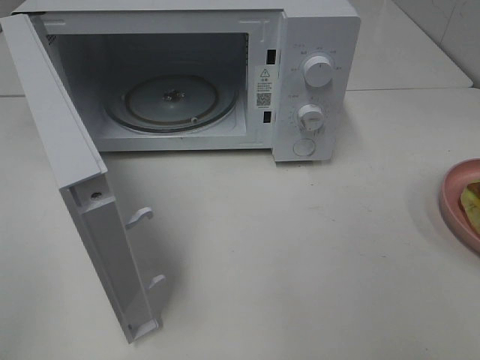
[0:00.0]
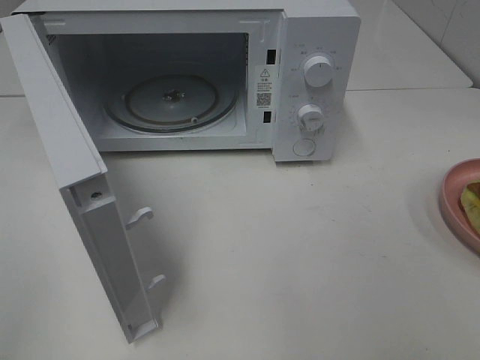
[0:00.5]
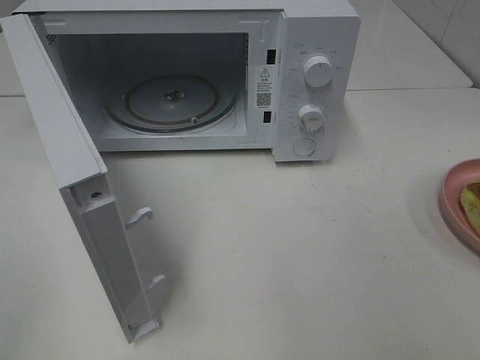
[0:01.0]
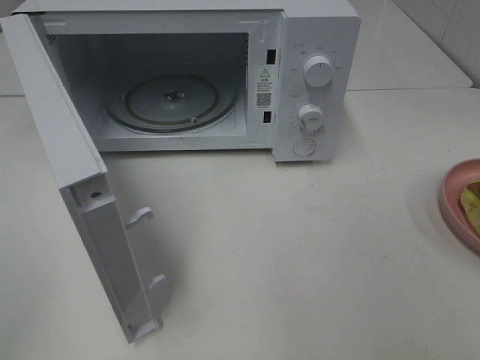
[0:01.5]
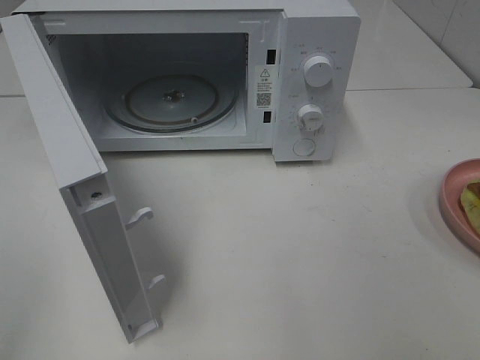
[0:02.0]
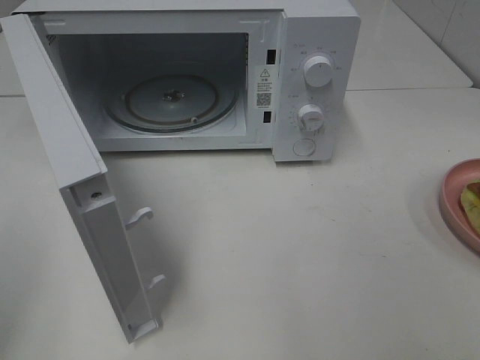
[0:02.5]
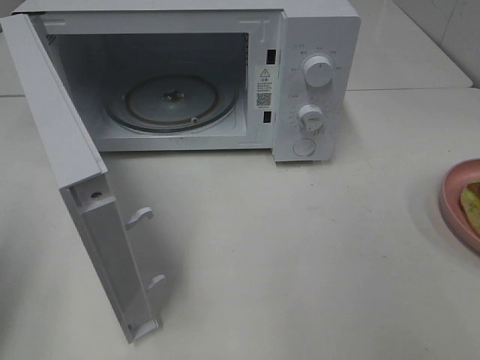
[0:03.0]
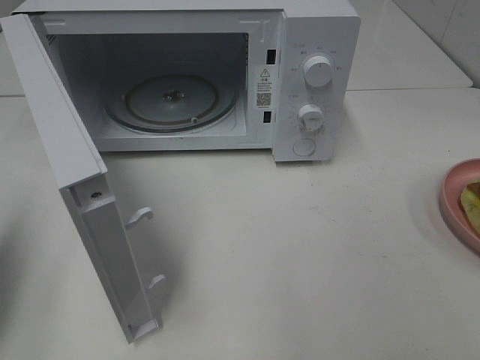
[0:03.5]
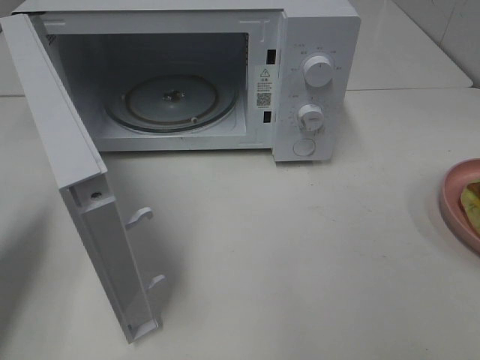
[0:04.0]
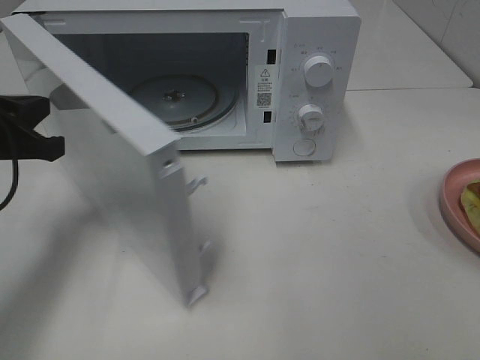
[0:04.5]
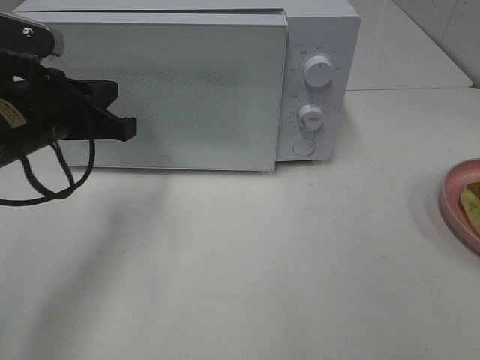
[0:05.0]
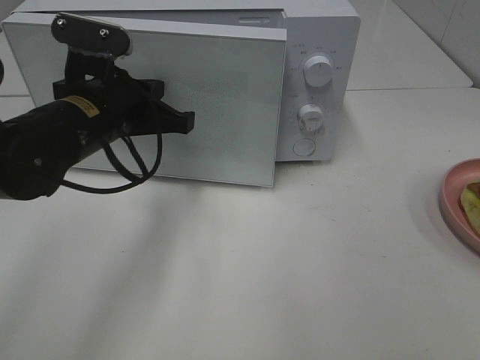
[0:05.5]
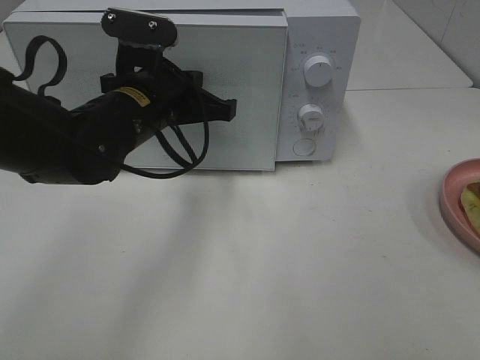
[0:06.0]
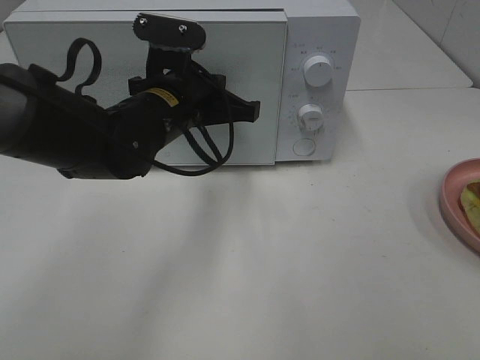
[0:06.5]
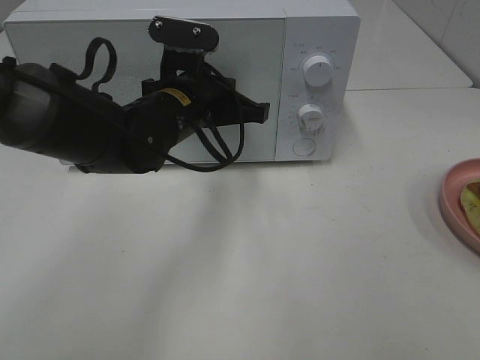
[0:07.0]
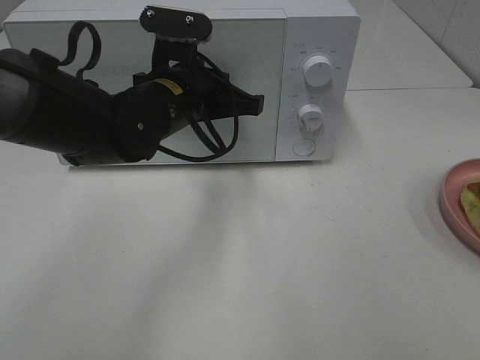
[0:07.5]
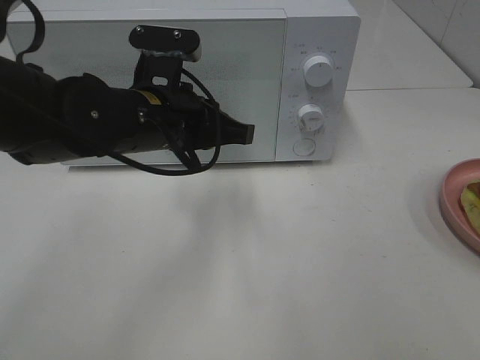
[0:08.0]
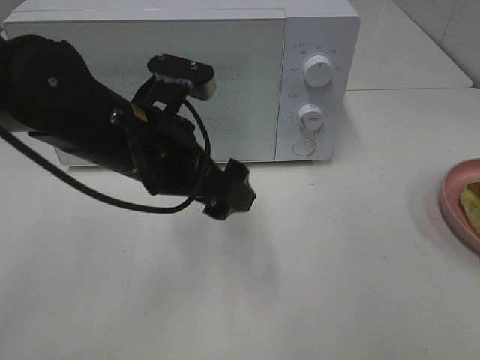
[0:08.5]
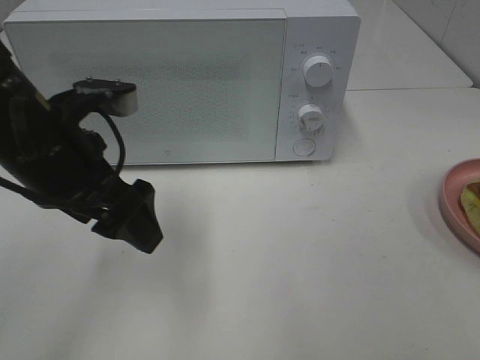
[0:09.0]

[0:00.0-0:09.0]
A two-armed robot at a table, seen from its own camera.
Task of the whole recording: Heat Sandwich.
Step, 0:00.0 to 0:08.0: Left hand: close the microwave door.
0:02.0 to 0:04.5: The left gripper travels forward and downward by some 30 cm, and closes its fingers.
0:04.5 to 0:07.0: The left gripper shifts roughly 20 cm to the right and forward.
0:07.0 to 0:09.0: The left gripper moves backward, to the left and upward, approximately 15 cm, and opens.

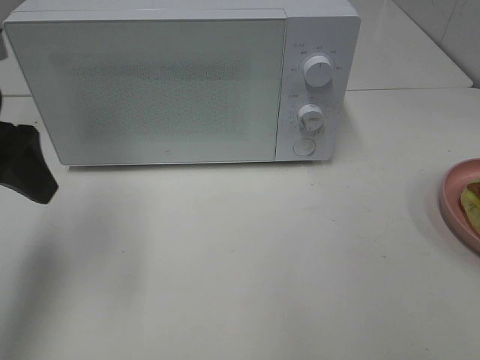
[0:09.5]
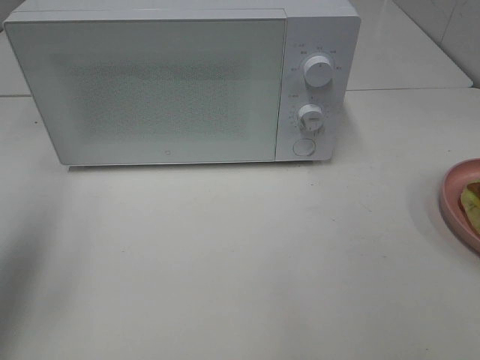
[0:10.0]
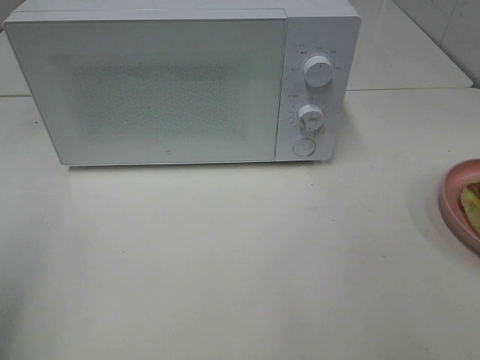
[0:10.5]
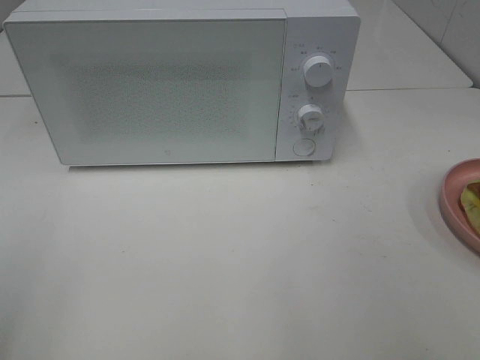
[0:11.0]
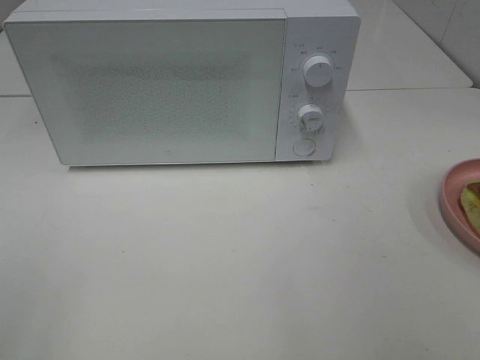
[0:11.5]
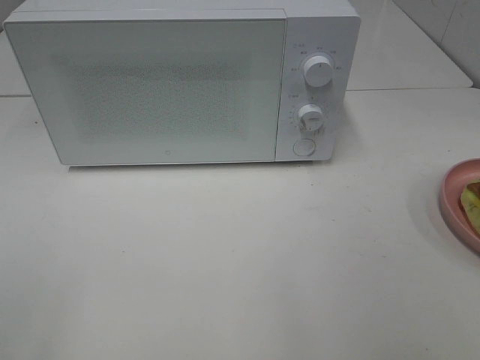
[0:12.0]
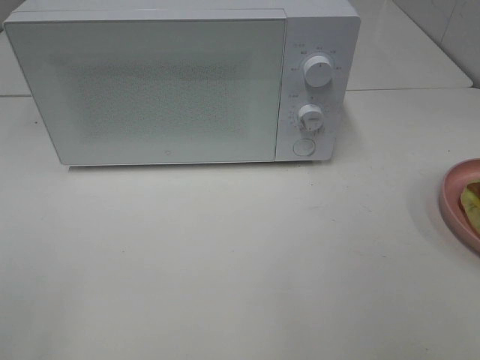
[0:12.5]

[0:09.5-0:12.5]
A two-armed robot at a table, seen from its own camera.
Task of the whole recording: Heat Sandwich.
0:09.5 to 0:11.0: The left gripper goes some 20 cm backward.

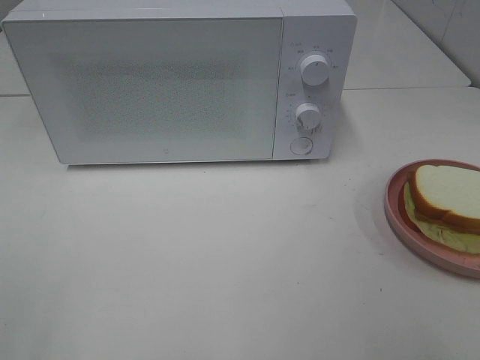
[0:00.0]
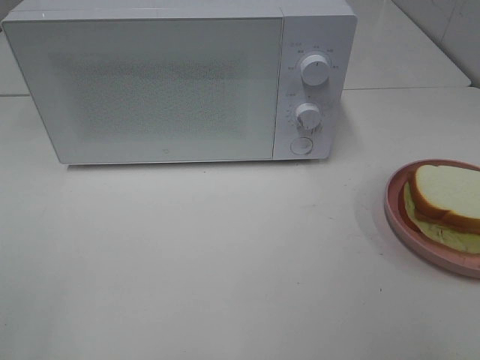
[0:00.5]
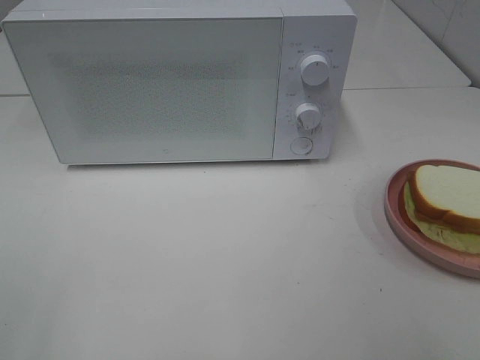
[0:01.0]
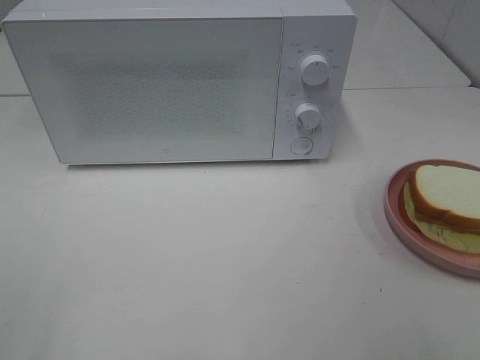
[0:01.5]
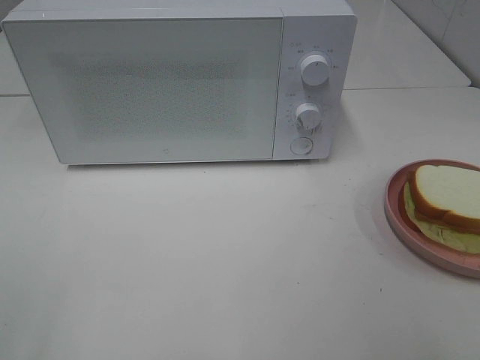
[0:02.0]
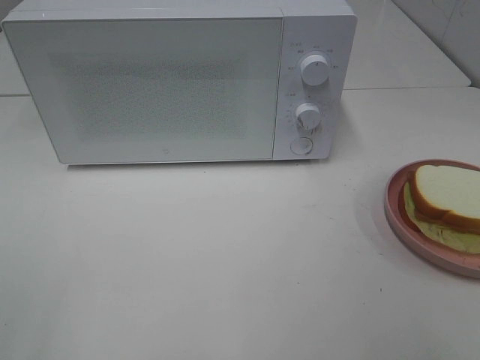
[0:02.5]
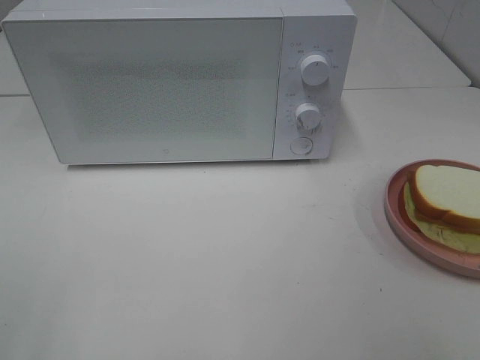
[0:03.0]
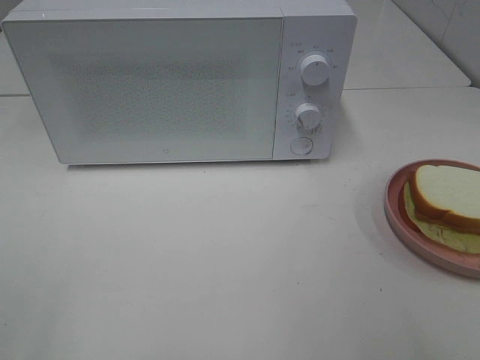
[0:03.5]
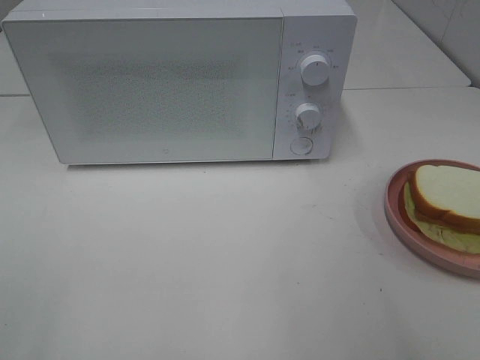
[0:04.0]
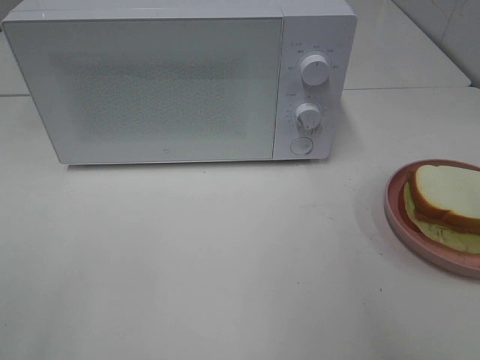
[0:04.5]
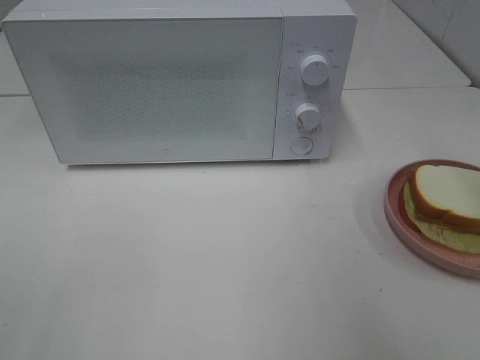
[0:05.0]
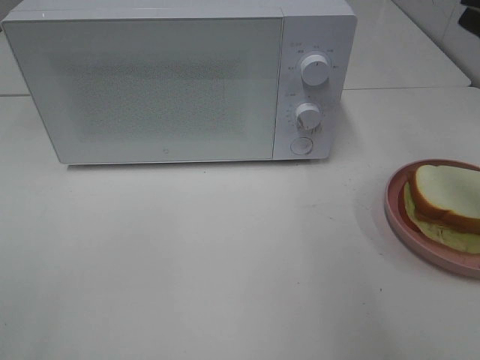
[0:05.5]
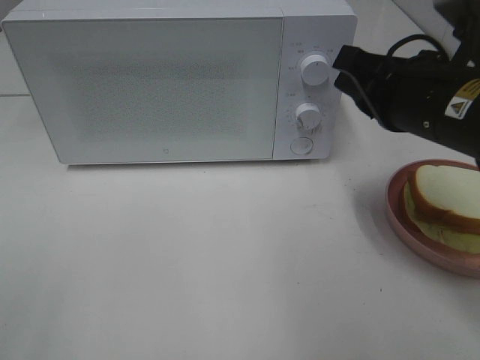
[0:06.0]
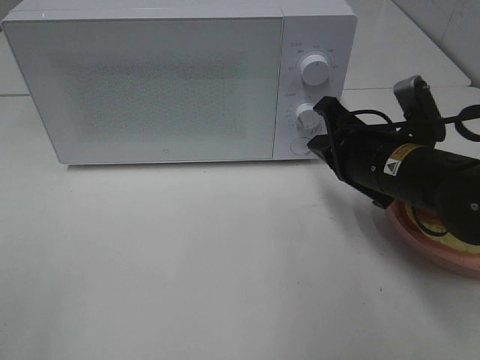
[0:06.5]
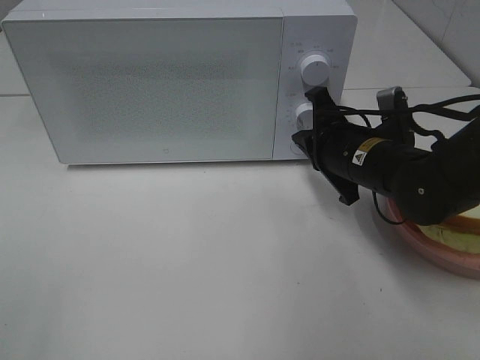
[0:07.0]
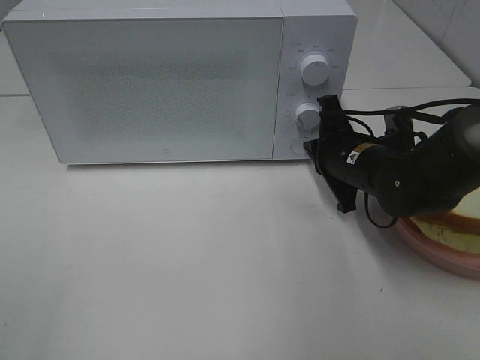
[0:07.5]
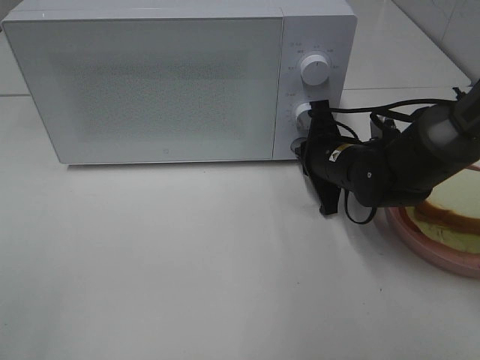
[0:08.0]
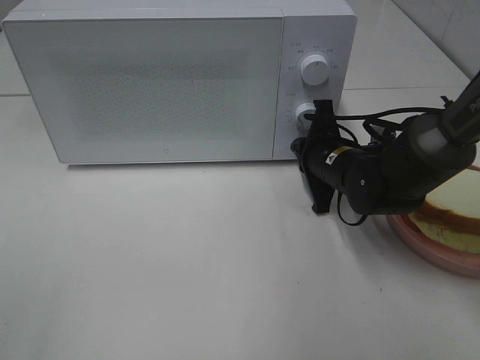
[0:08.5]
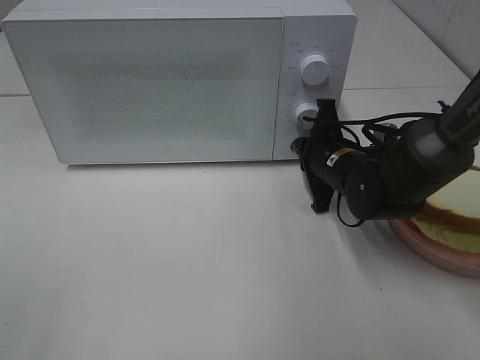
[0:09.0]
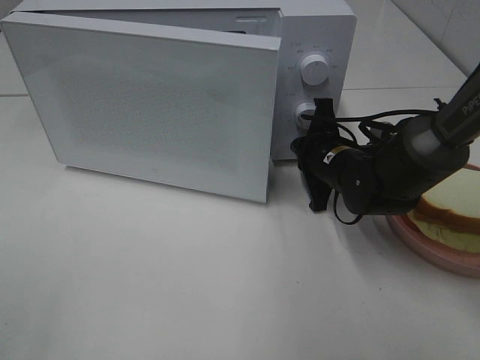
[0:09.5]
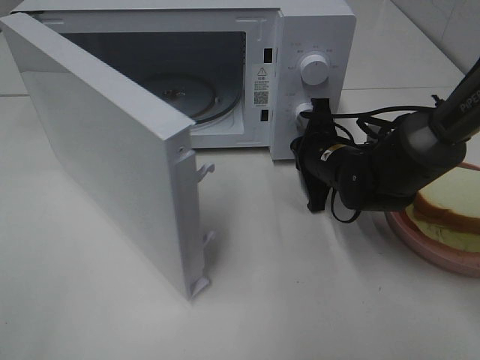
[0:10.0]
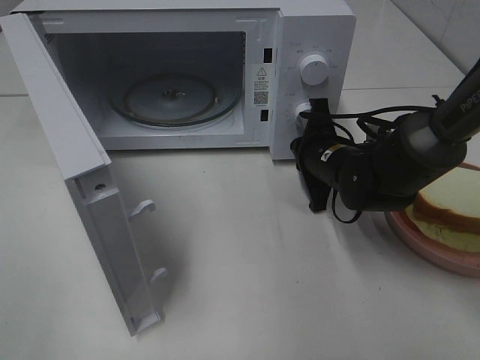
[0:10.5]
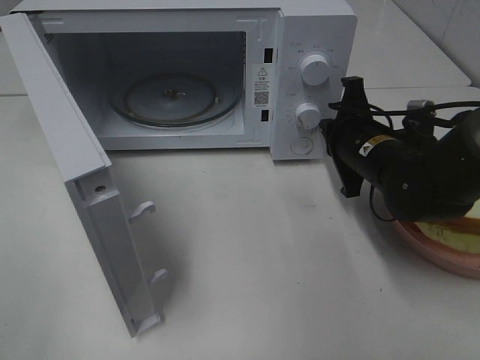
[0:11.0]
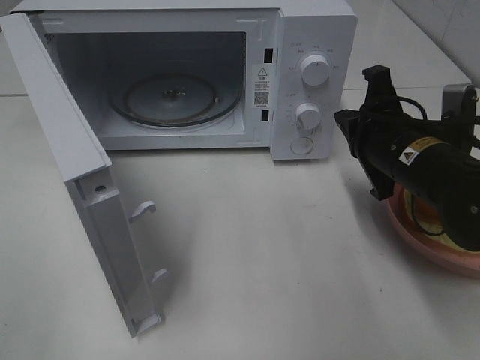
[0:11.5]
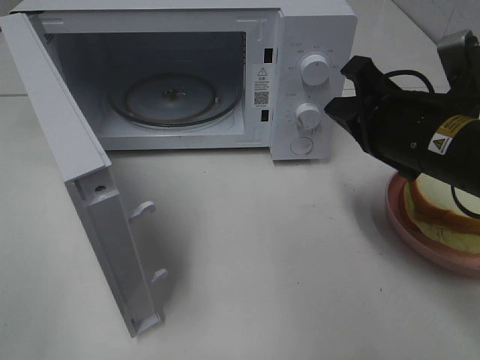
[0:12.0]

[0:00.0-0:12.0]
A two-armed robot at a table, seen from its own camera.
Task of the whole recording: Heat Sandwich.
Step, 0:00.0 to 0:11.0: Right hand: press the switch.
0:00.0 to 0:02.0: The two grippers keep their place.
0:04.0 to 0:06.0: The right gripper heads forward, to the left and downward, covering roughly 25 cm, and closes up.
0:06.0 to 0:08.0: The right gripper is displaced downward and forward by some 15 cm.
0:10.0 to 0:12.0: The right gripper goes approximately 15 cm upward and backward.

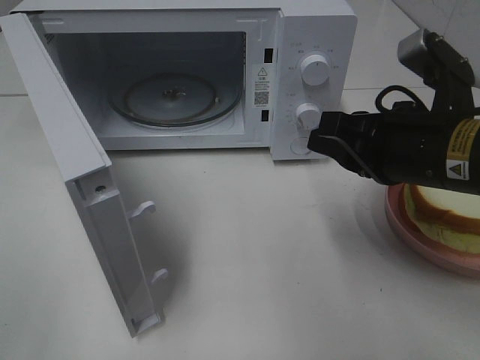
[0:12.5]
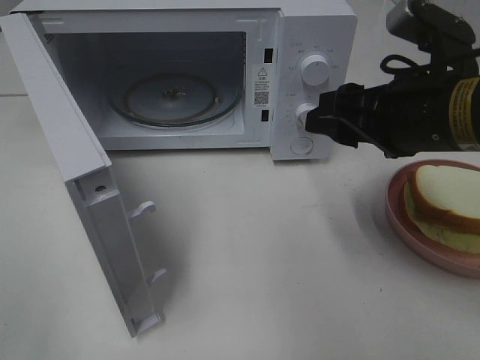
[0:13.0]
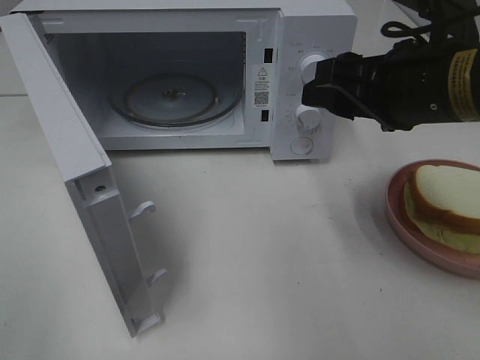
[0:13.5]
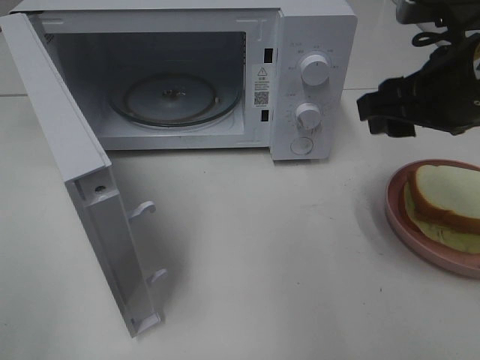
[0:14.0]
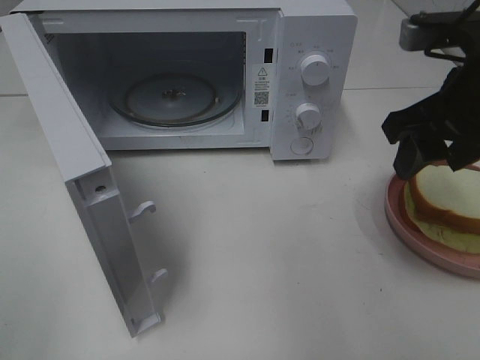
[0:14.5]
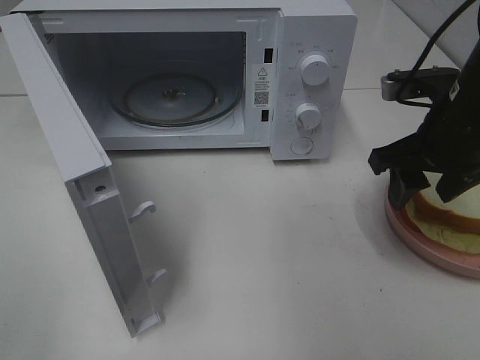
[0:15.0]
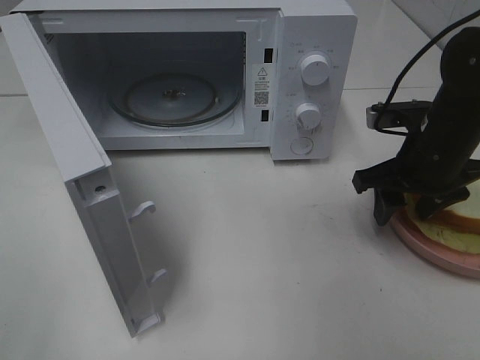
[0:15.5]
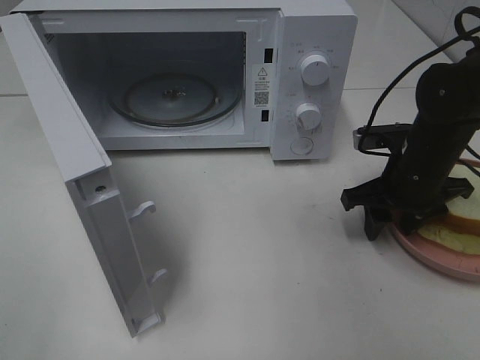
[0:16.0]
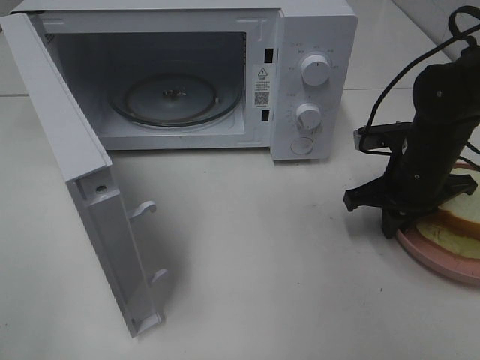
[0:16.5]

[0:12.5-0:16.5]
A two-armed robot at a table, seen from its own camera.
Task of the whole recording: Heat Sandwich.
0:12.5 to 0:14.5: The right gripper moves upward, approximately 5 cm, and opens up.
0:14.5 to 0:16.5: The right gripper moves downward and forward, roughly 15 cm, and closes up.
